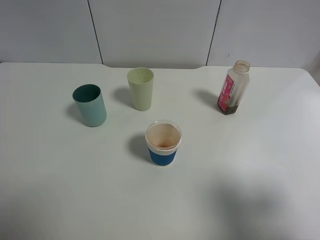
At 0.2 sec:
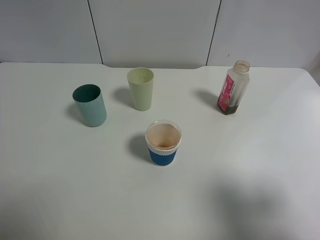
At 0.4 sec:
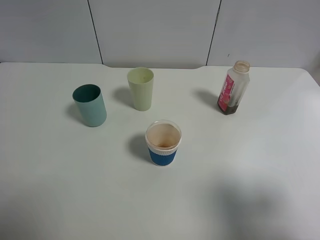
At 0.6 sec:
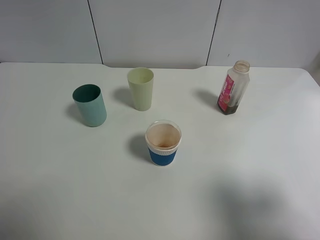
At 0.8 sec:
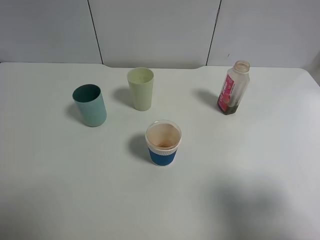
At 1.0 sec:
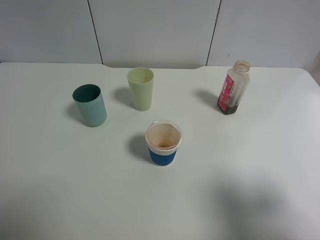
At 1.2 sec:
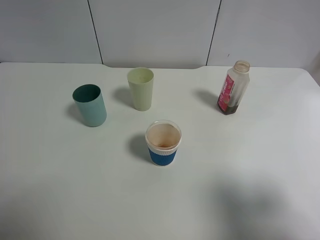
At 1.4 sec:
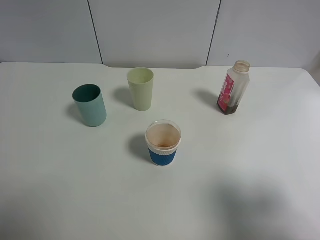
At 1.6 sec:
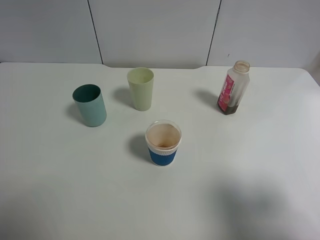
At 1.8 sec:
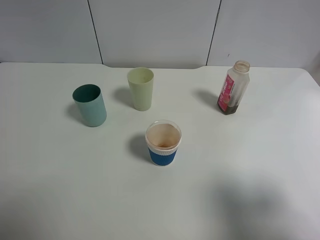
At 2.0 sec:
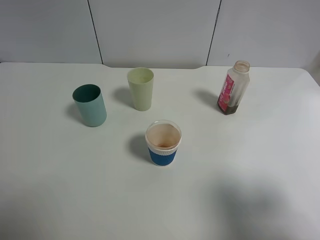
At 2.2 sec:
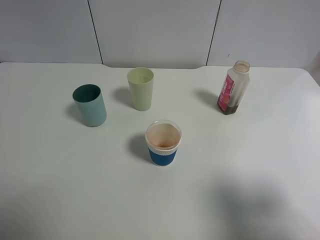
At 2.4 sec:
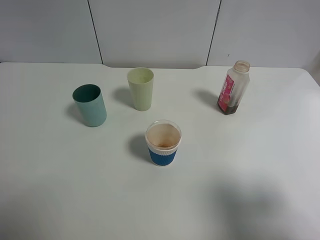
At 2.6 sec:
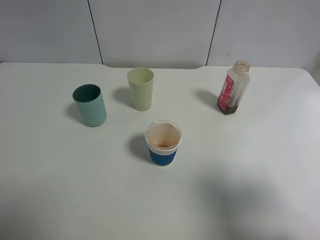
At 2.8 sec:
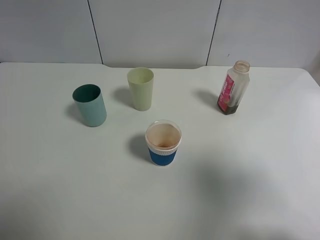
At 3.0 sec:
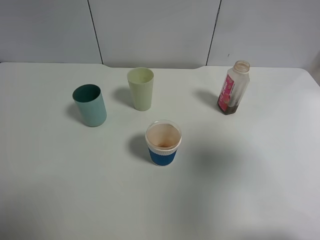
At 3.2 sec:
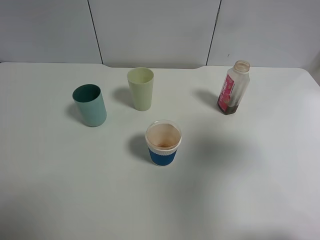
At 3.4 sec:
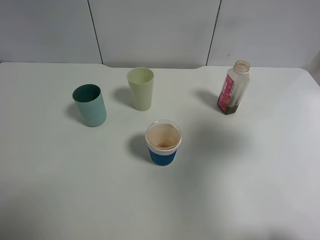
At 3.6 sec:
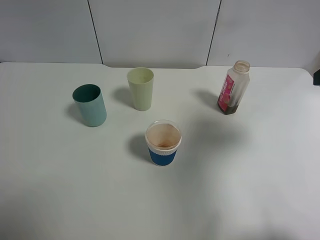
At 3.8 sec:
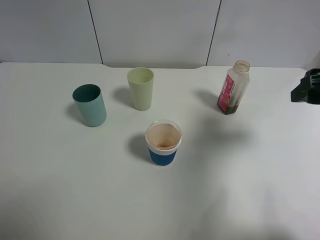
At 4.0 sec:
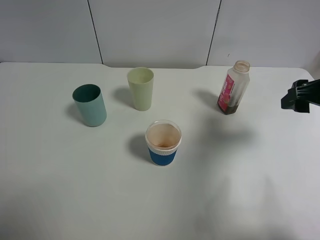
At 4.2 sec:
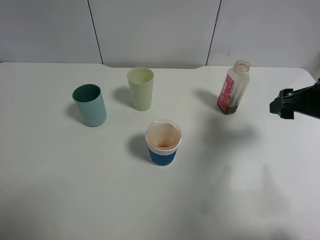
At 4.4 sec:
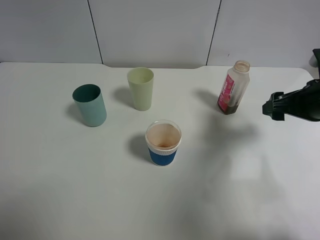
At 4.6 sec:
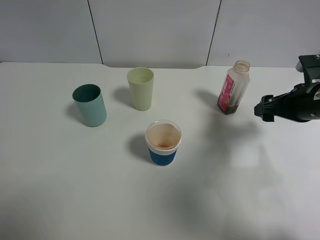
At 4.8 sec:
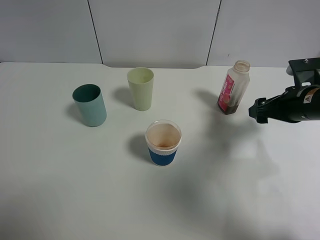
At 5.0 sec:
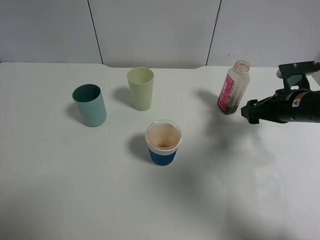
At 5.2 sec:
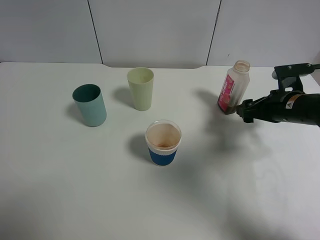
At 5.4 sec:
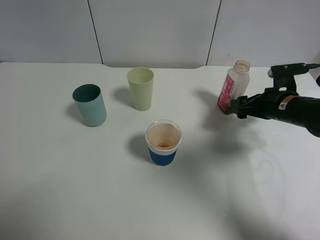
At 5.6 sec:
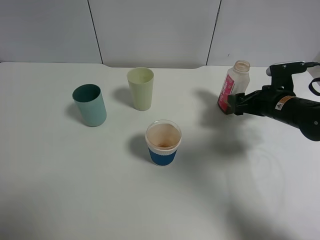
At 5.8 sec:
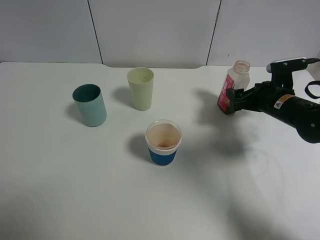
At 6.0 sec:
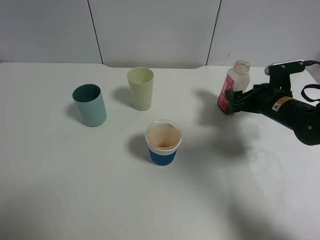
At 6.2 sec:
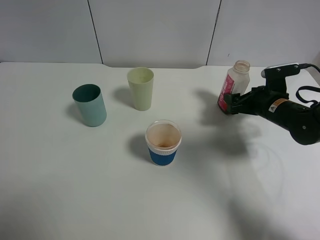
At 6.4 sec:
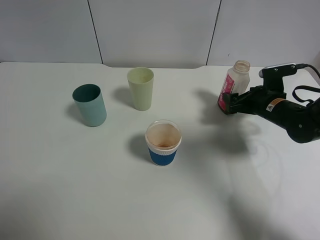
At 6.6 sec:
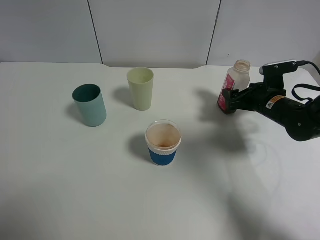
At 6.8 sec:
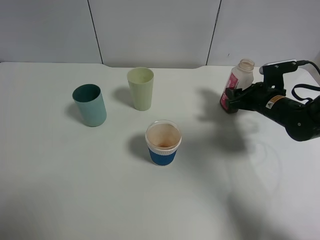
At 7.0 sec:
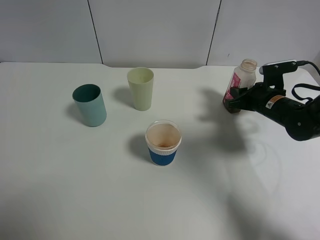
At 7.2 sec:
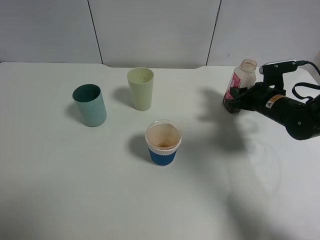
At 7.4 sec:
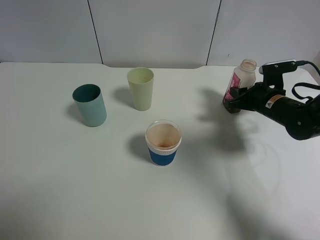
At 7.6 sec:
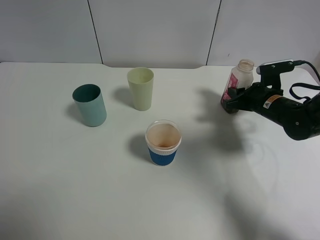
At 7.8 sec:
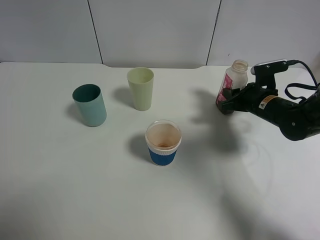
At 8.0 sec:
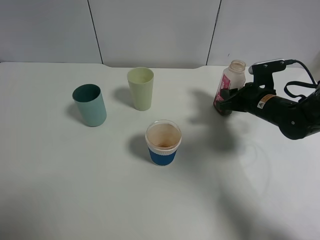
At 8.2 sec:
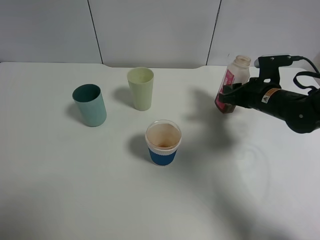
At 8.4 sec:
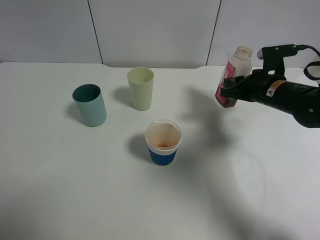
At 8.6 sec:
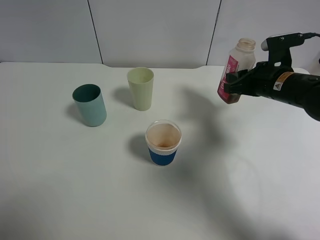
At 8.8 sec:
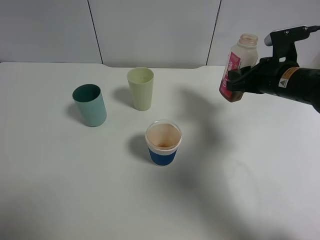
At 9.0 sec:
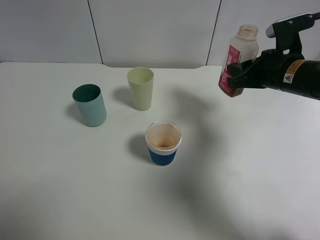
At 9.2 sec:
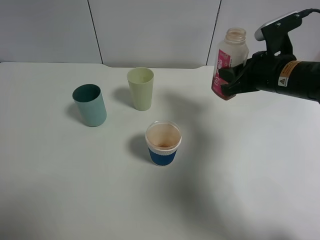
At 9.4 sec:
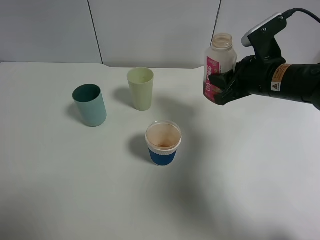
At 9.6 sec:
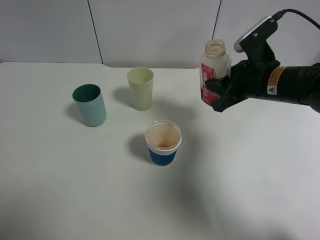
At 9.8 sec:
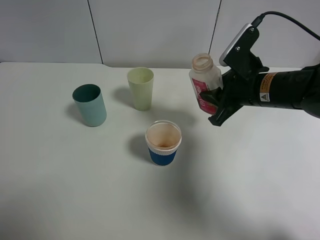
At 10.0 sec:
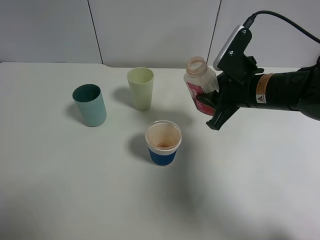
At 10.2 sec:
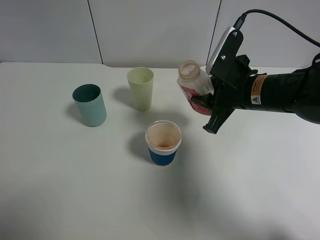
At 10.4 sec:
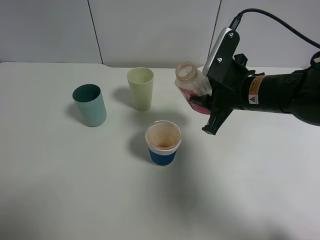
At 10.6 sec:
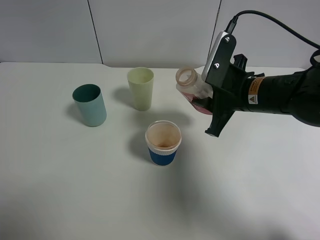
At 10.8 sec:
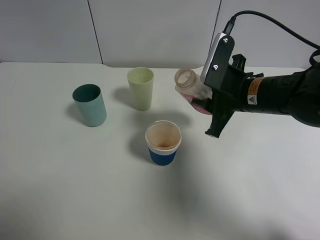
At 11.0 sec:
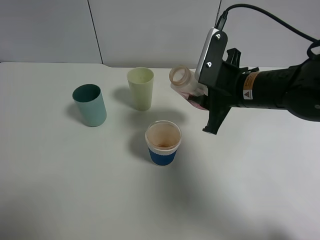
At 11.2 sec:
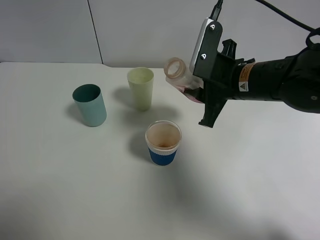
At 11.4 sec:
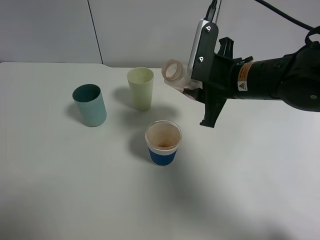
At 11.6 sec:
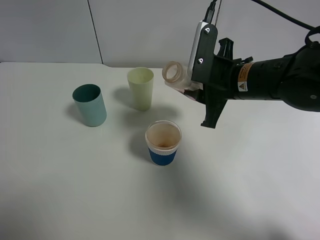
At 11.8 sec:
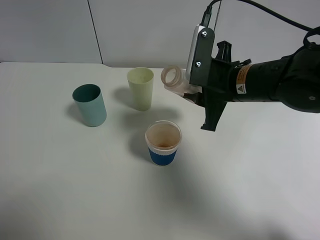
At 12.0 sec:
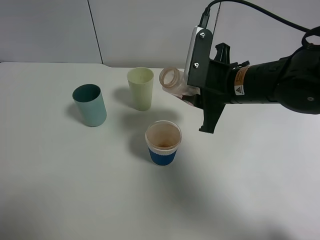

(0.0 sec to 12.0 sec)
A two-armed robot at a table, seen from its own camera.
Task of the whole recording: use a gripper to hold the bottle of the drink and pour it into a random cup.
Step, 0.0 sec - 8.0 sec: Grasp the cranberry juice bottle with the right gripper.
0.0 sec - 1.6 sec: Both grippers stay put.
1.6 sec - 3.0 sec: The right gripper goes about 10 cm forward and upward.
3.0 sec - 4.4 sec: The right gripper is displaced downward and forward by about 20 cm.
4.4 sec - 6.0 sec: The right gripper heads downward and forward, covering approximately 10 cm.
6.0 sec - 7.6 sec: The right gripper closes up.
7.6 sec - 9.0 sec: The right gripper moves upward, approximately 10 cm.
9.0 sec - 10.4 sec: The right gripper moves to the left, approximately 5 cm.
10.4 sec - 12.0 sec: The grippers make only small movements.

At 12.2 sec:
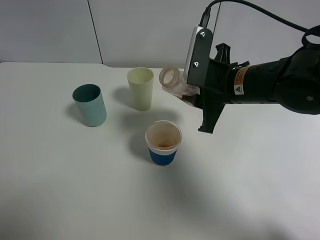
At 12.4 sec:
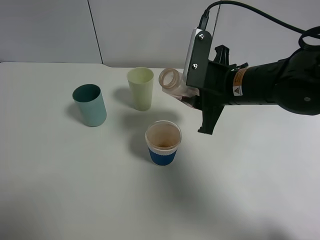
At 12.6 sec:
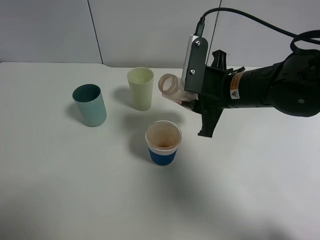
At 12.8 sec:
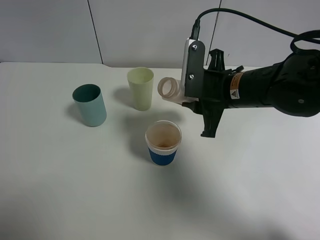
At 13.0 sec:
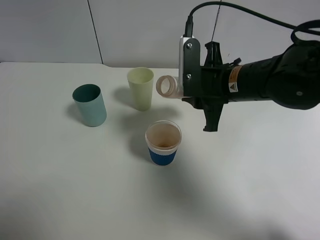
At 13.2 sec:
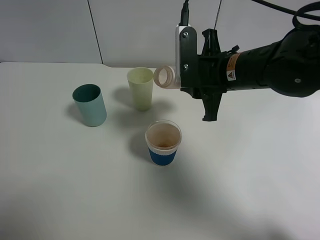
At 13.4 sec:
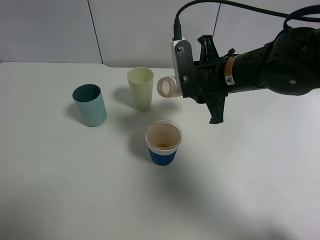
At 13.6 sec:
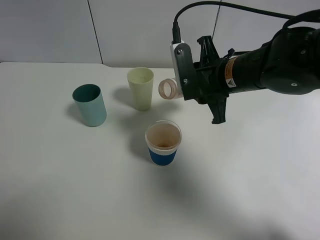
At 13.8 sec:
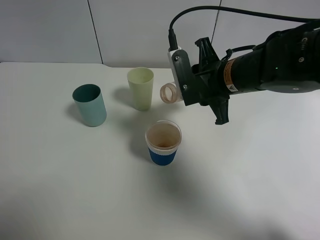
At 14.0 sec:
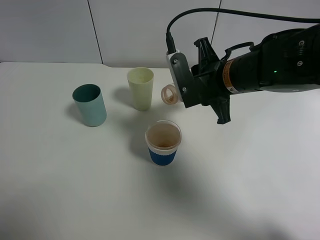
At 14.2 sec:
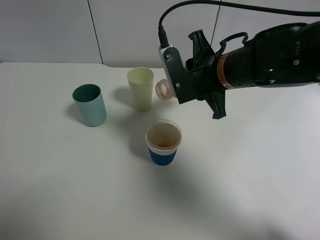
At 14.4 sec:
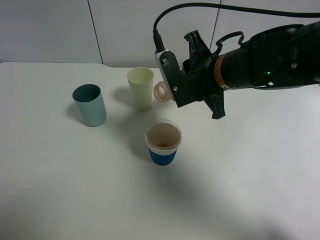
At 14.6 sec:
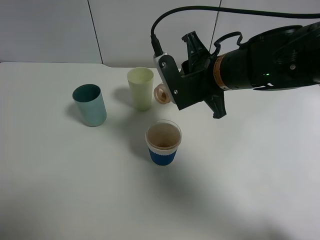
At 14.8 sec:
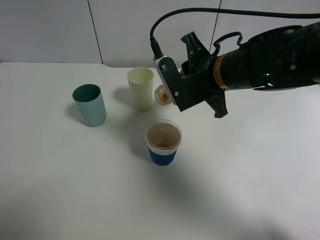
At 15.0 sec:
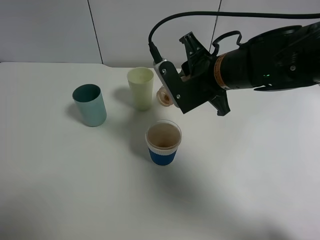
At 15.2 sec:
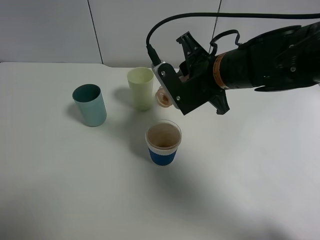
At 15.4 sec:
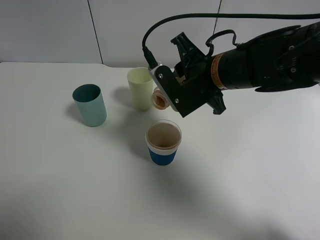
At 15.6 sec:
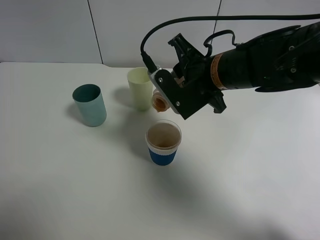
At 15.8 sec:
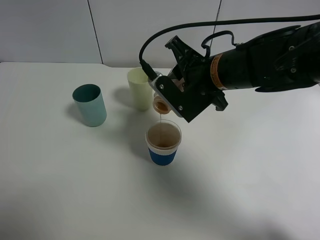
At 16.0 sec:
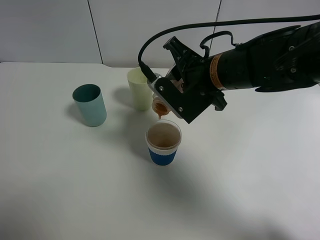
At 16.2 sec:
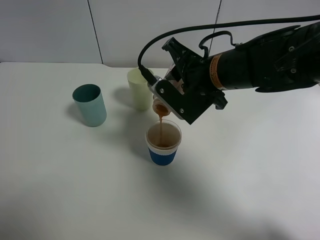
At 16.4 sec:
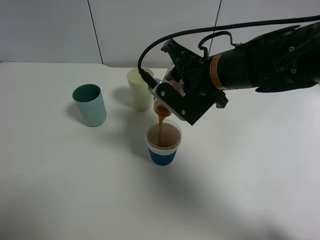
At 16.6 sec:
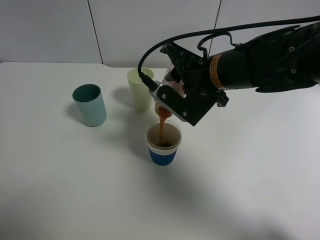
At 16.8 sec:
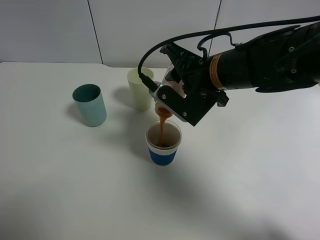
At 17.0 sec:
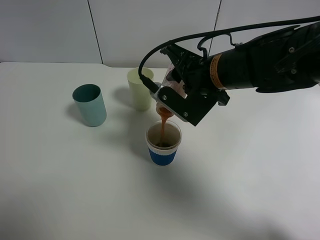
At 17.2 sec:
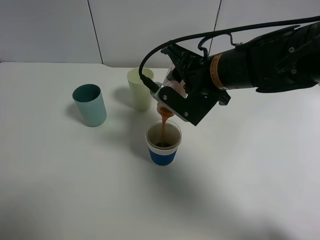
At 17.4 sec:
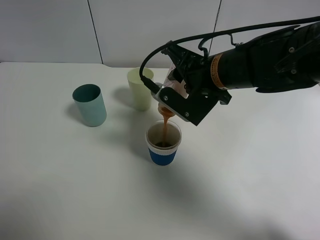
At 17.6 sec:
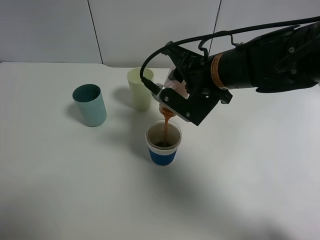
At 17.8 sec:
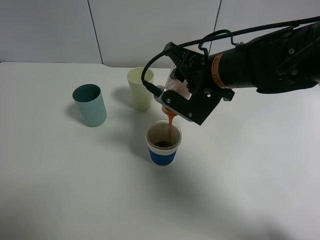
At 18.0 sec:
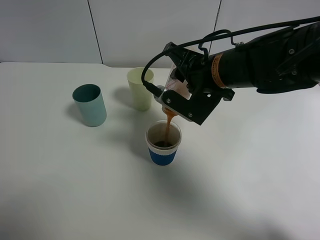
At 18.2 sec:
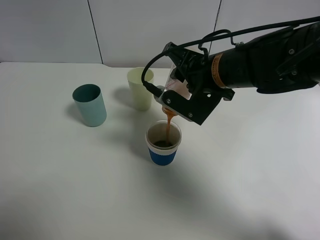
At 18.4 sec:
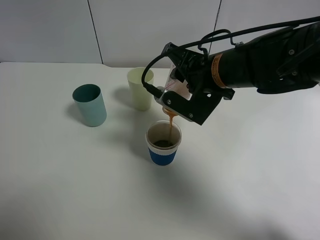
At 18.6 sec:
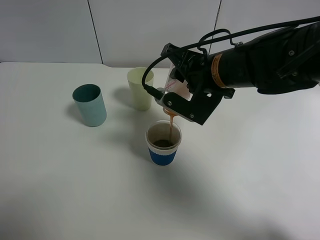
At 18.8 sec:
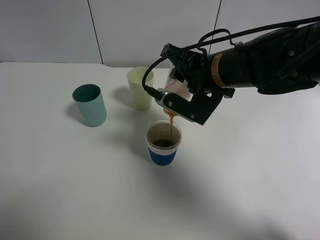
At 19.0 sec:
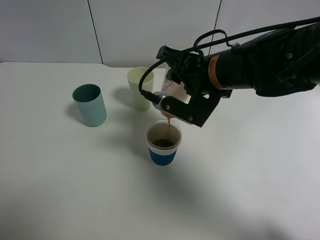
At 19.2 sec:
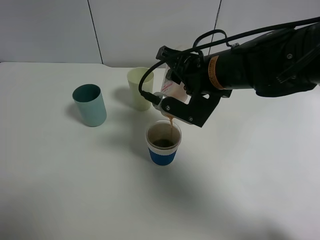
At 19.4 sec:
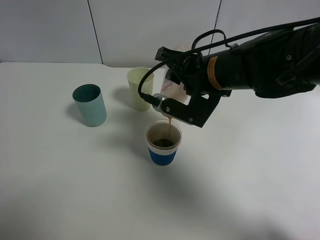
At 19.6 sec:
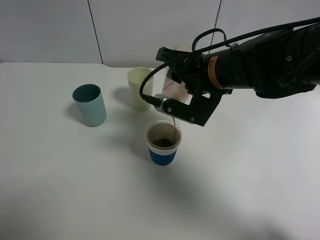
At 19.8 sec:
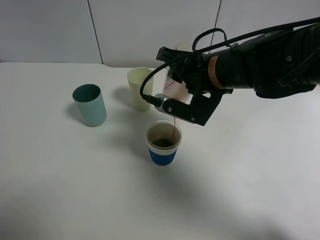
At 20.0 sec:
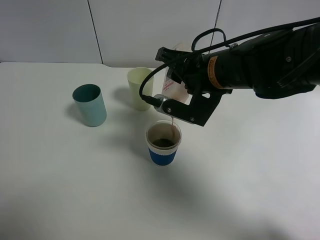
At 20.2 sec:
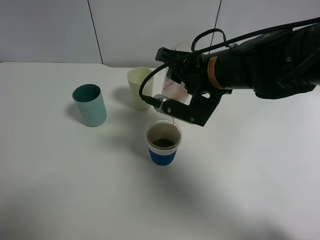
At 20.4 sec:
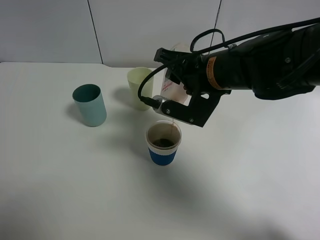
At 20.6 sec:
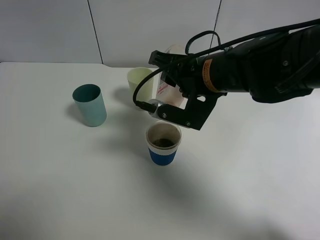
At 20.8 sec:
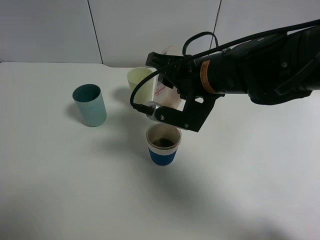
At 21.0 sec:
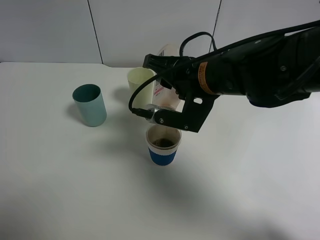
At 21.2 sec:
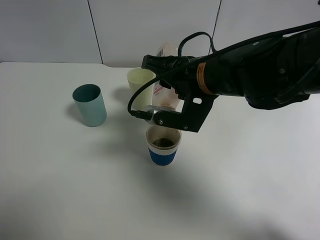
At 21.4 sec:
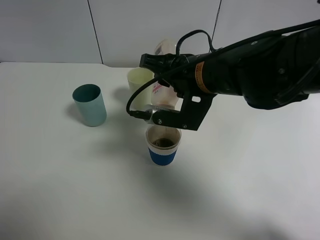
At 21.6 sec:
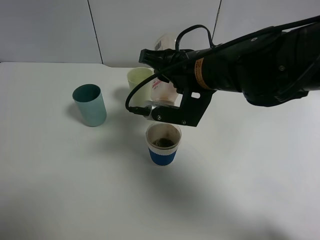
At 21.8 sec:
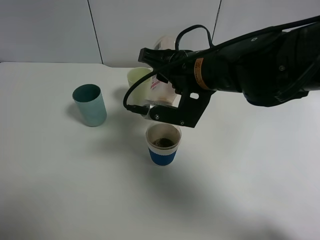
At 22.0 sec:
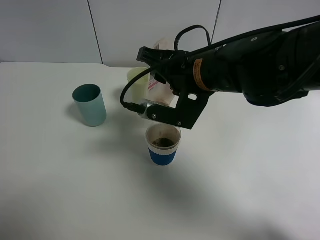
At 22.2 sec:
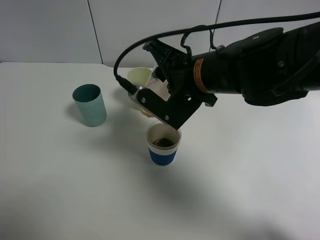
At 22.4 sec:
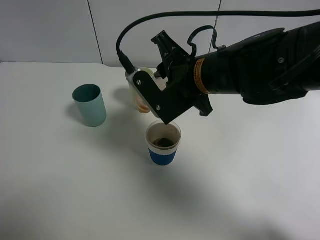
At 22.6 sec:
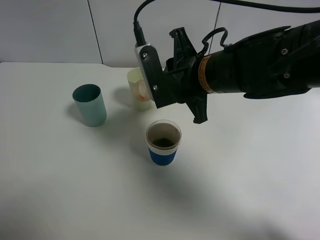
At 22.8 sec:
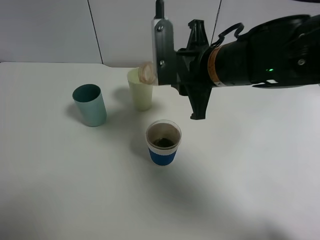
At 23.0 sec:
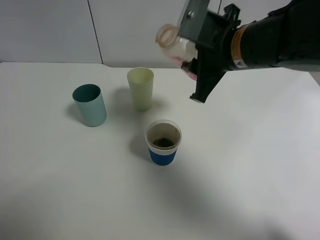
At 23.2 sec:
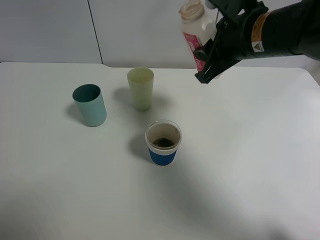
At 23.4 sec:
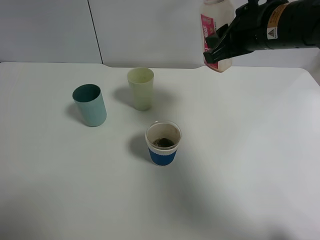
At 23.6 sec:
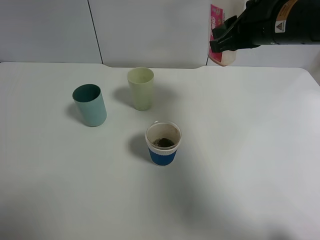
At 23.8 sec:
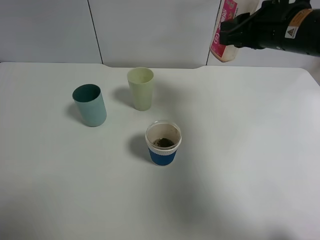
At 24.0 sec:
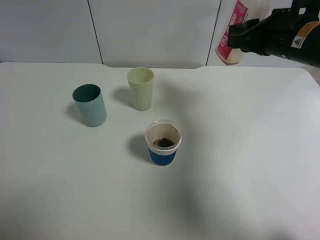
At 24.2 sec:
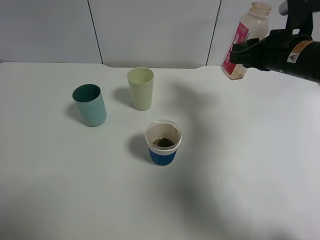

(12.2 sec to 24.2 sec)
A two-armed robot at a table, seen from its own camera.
Task of the whole recording: use a gripper to hold the bottle of the drink and pour it into a random cup.
Step, 12.2 sec - 22.4 sec: Pour the cranberry juice into the paper cup with the right gripper.
13.8 sec - 15.2 sec: The grippers move only a little.
16.6 sec - 19.8 sec: The grippers move only a little.
19.8 sec - 21.2 sec: The grippers make only small movements.
22.6 sec - 24.2 sec: The right gripper moves to the right, some 15 cm.
